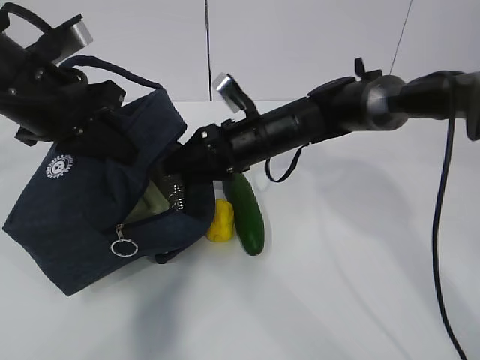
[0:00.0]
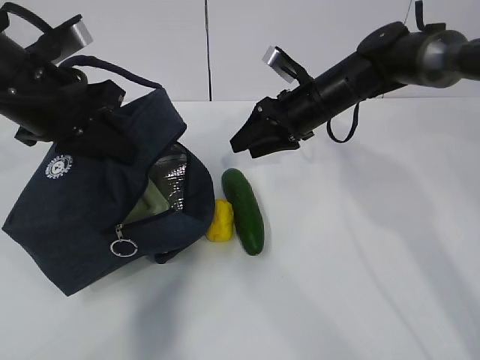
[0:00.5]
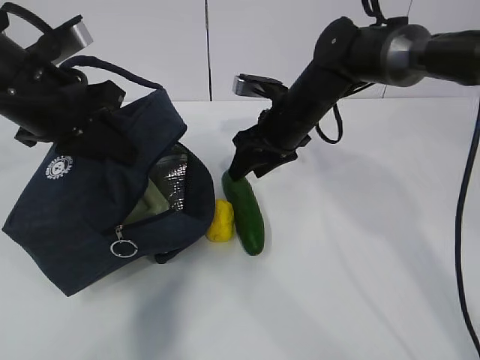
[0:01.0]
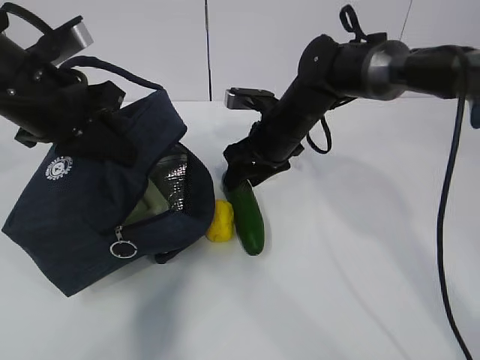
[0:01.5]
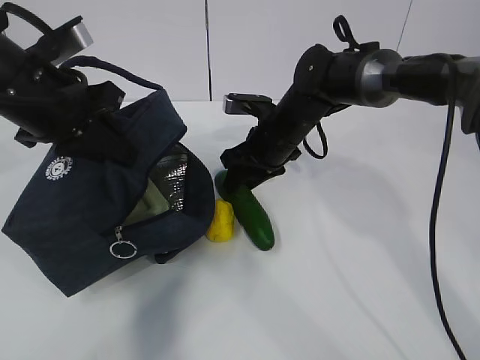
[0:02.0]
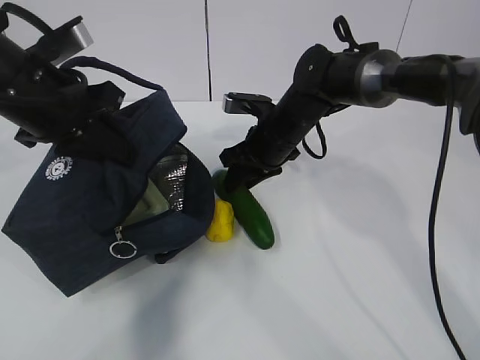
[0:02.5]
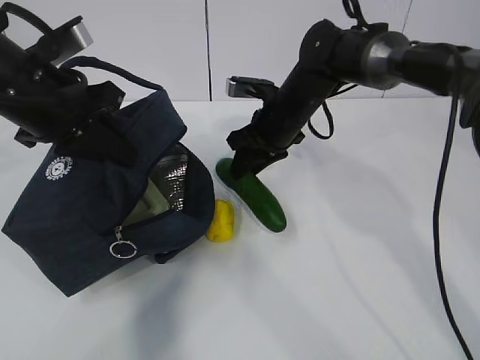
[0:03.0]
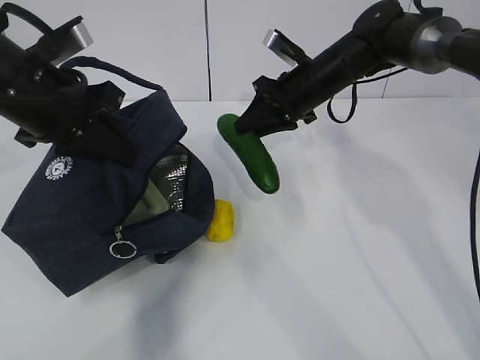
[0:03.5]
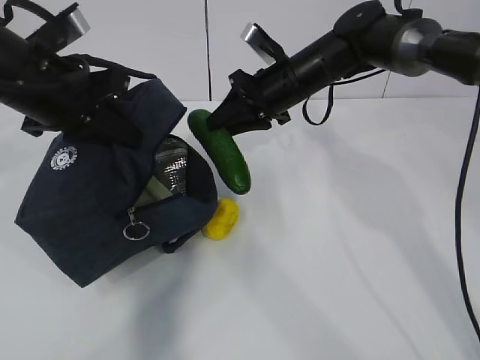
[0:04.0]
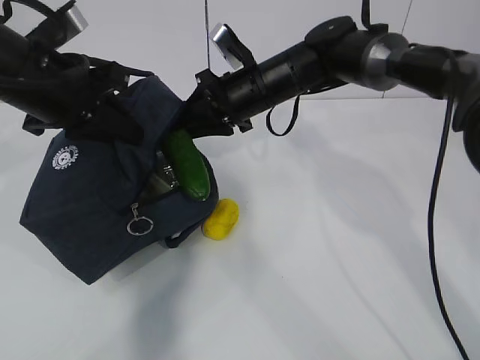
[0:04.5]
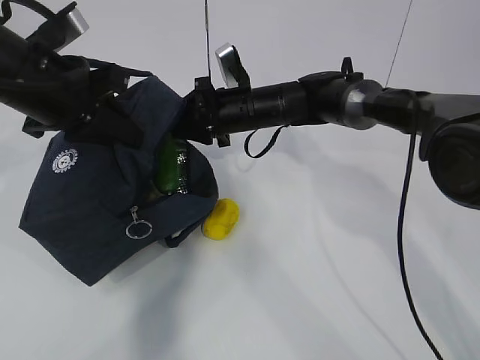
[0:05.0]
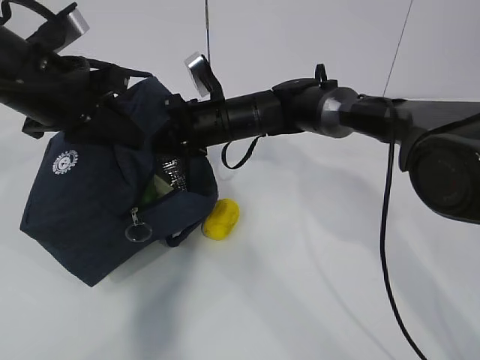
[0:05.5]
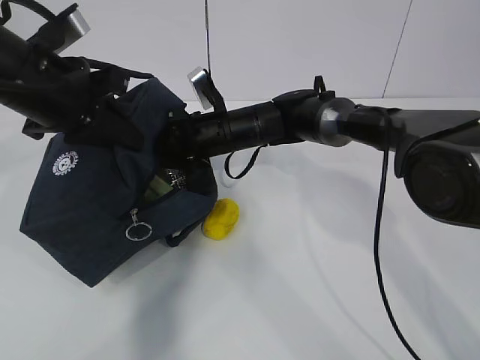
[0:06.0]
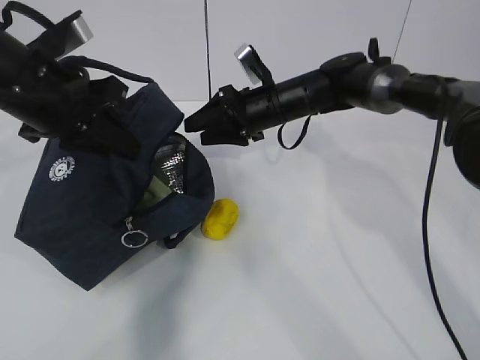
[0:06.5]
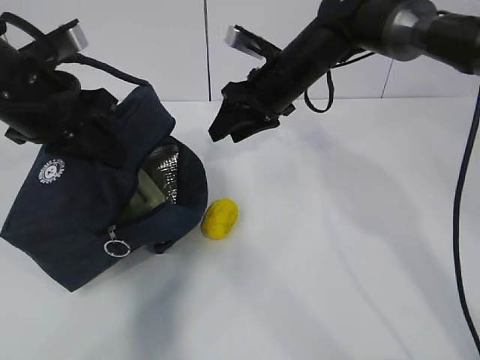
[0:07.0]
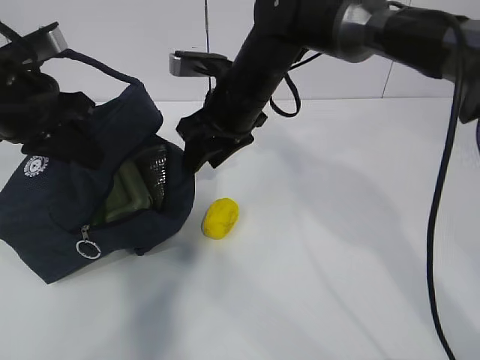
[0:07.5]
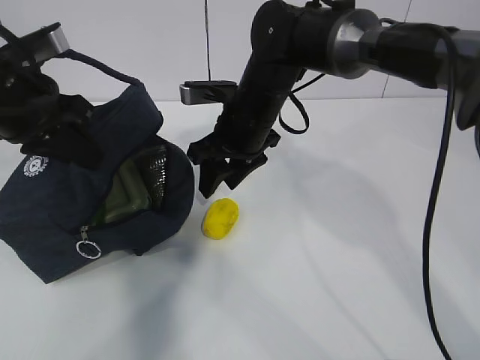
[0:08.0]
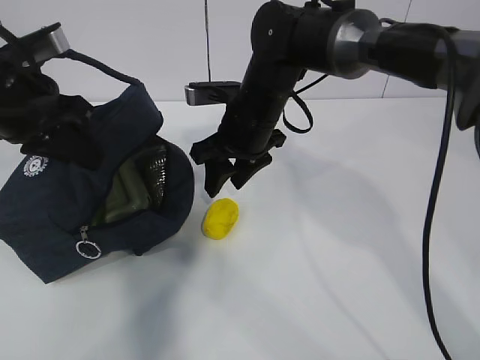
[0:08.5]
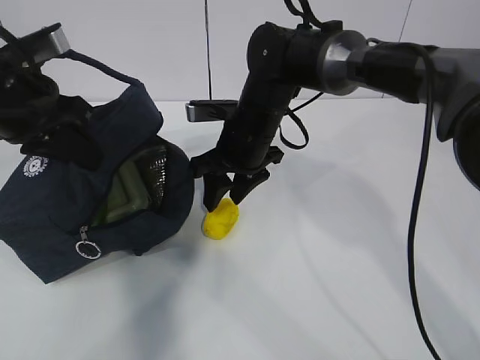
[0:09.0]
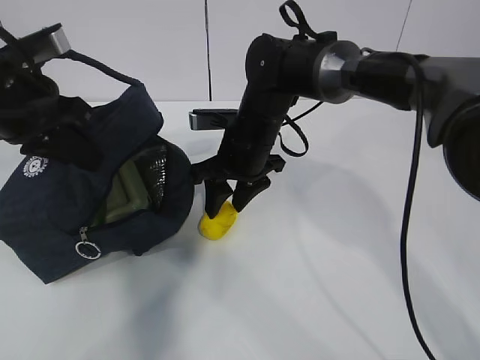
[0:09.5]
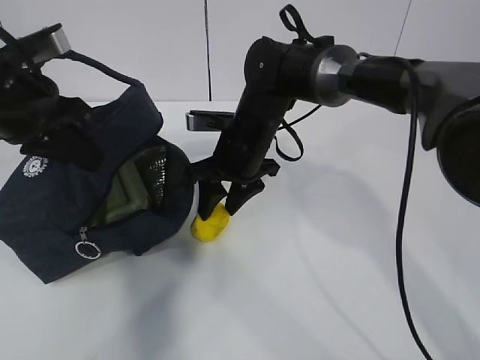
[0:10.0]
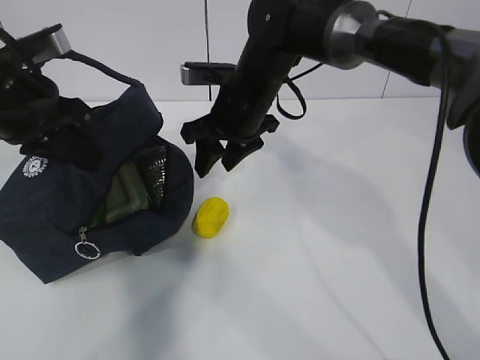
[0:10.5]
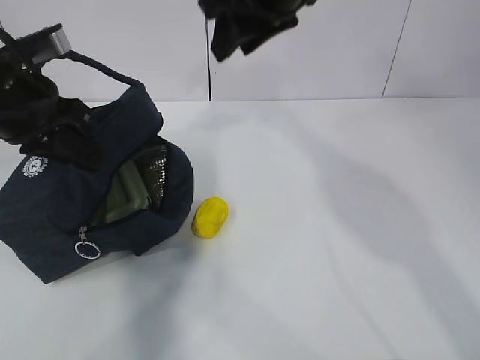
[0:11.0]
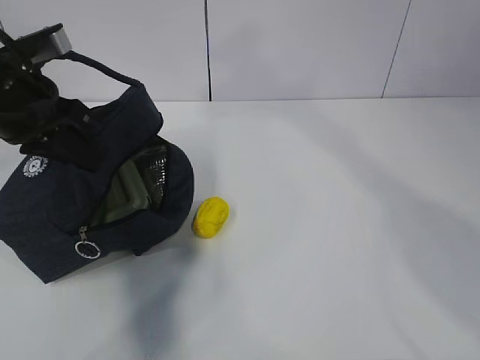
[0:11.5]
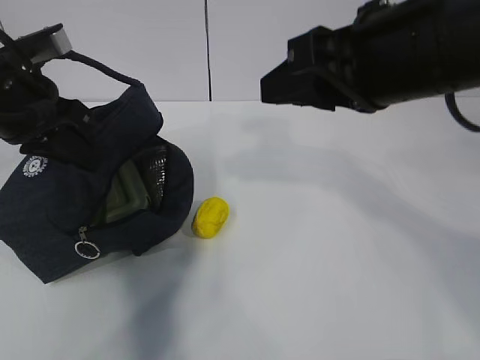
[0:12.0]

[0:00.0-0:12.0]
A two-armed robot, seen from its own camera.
Step, 0:00.0 to 0:01.5: Place it into the bag with your right hand.
Step, 0:02.0 to 0:10.0: Grab the lemon with your right hand.
0:02.0 to 0:04.0: The right gripper goes about 5 cm upward.
0:04.0 to 0:06.0: The right gripper moves to the left and downward, approximately 10 cm, and opens.
0:06.0 to 0:08.0: The right gripper moves upward, some 5 cm.
0:08.0 to 0:10.0: The grippers stay close to where they were, moving slightly.
0:10.0 to 0:12.0: The right gripper shifts roughly 25 cm upward, backward and to the right.

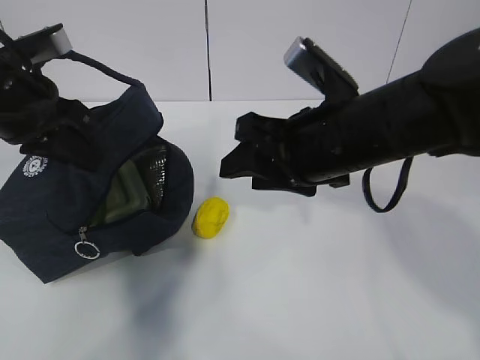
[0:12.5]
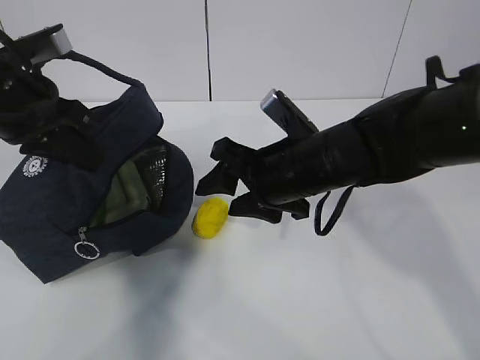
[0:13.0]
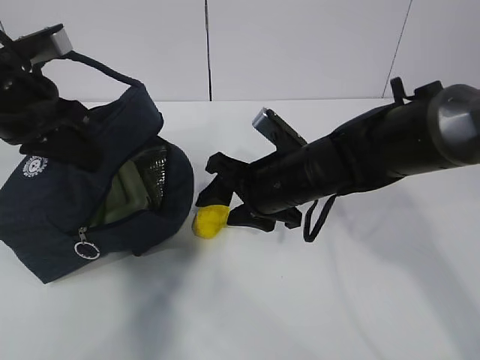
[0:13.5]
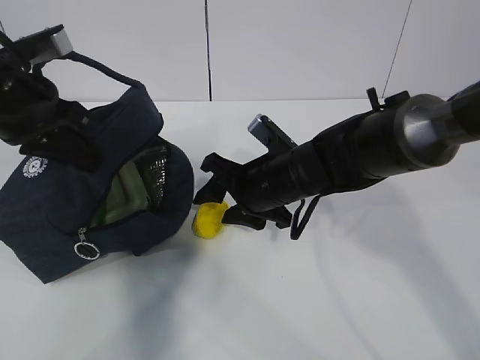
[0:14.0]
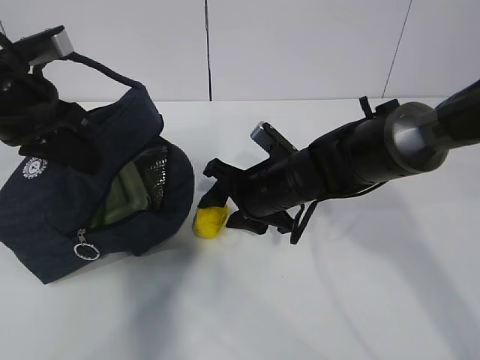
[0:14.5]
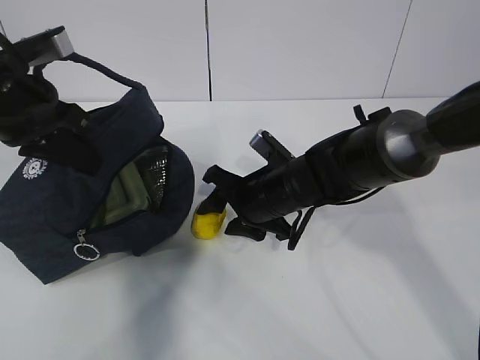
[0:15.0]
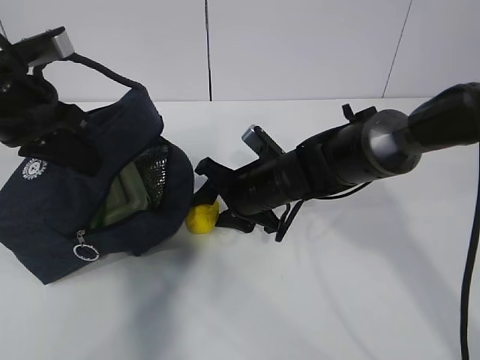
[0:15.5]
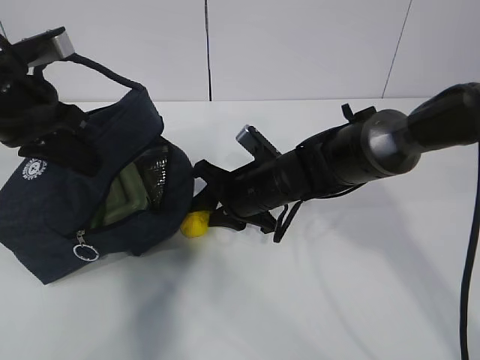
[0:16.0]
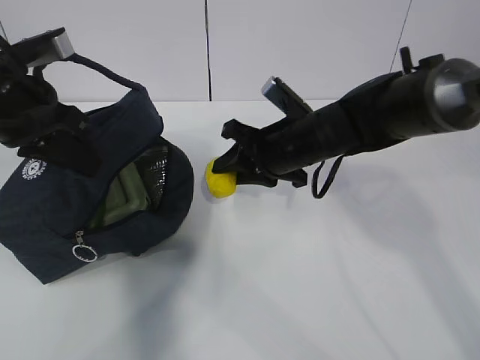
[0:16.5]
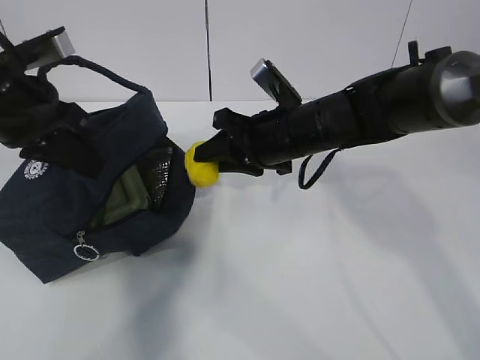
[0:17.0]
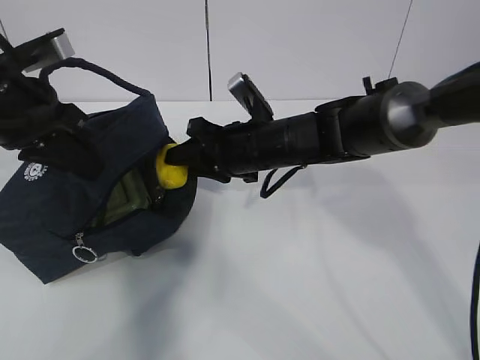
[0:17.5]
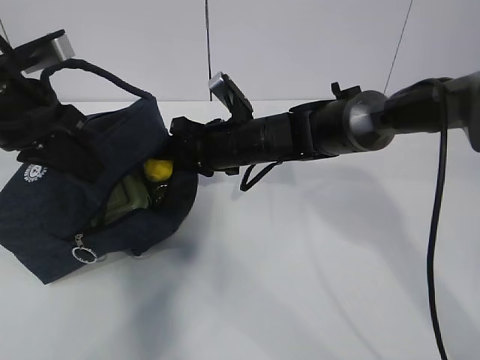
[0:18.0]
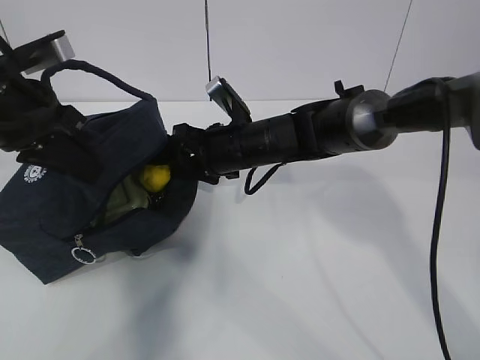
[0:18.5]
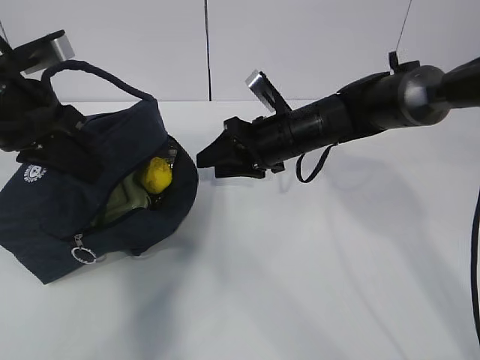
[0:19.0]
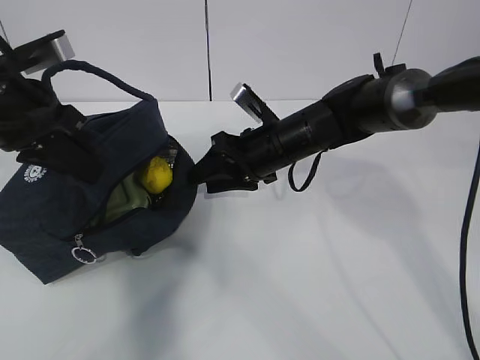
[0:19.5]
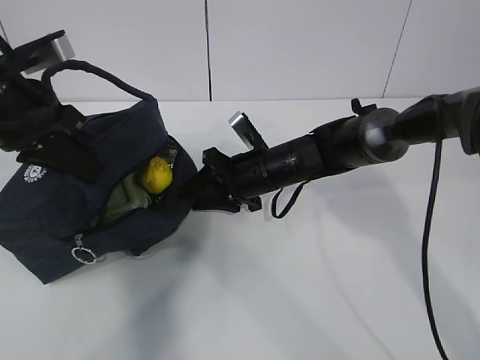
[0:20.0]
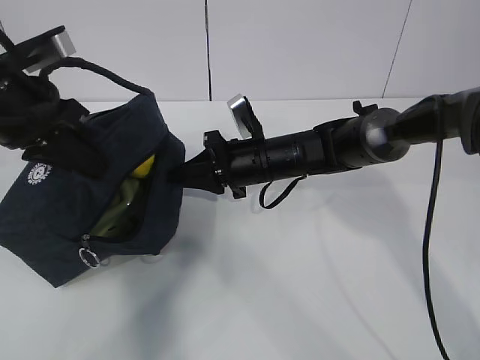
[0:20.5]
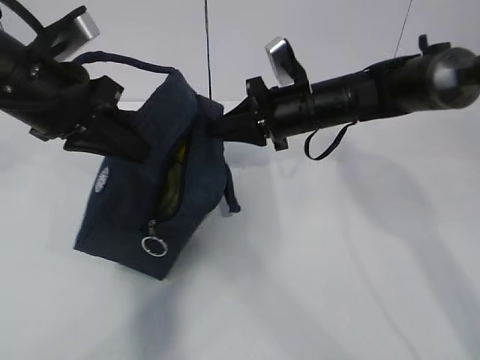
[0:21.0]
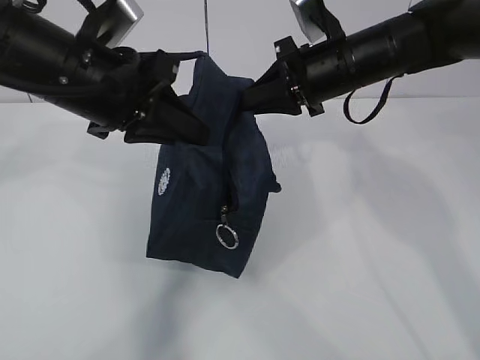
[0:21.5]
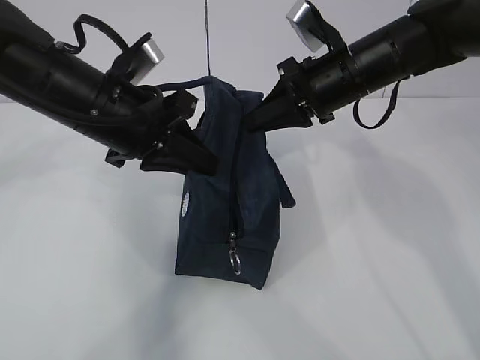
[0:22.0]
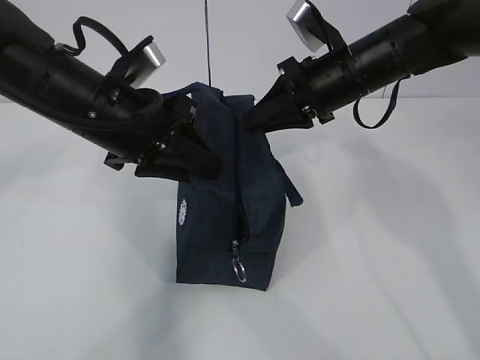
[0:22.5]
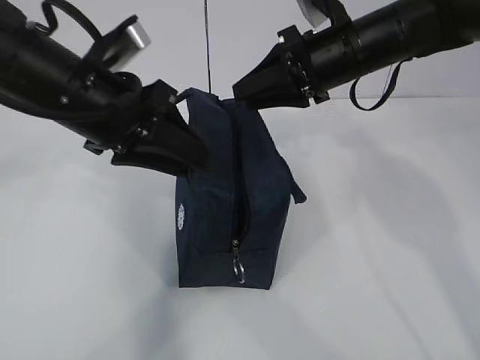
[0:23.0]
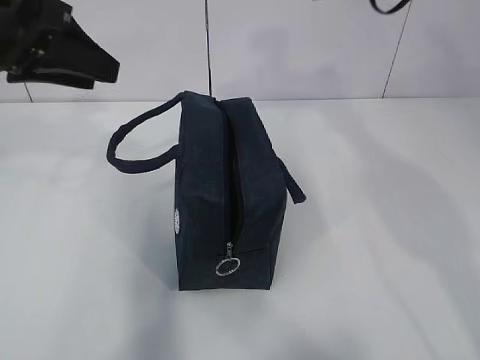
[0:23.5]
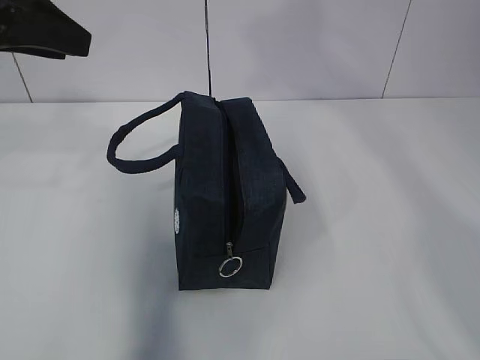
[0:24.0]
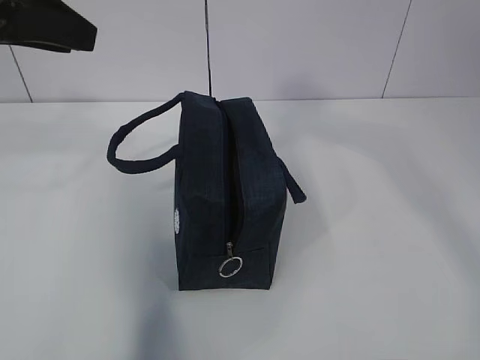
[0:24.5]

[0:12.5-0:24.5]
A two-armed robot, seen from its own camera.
Step, 0:12.5 to 0:13.5: Grab the lunch bag with your right hand.
Step, 0:14.0 to 0:16.0: Stand the lunch bag upright with your right hand.
0:12.5 to 0:14.5: The right gripper travels downward and forward by approximately 15 cm.
0:14.5 to 0:16.5: The right gripper shifts by roughly 5 cm, and closes its fingers.
0:16.5 to 0:18.5: The right gripper moves to the left, about 5 cm, and opens.
0:18.5 to 0:20.5: The right gripper closes.
0:20.5 to 0:22.5: The right gripper goes about 15 cm upward and to the right. The left gripper is displaced to the right by some 10 cm, and opens.
0:22.5 to 0:24.5: The left gripper travels upward and to the left by some 15 cm, while the right gripper travels upward and backward by some 30 cm.

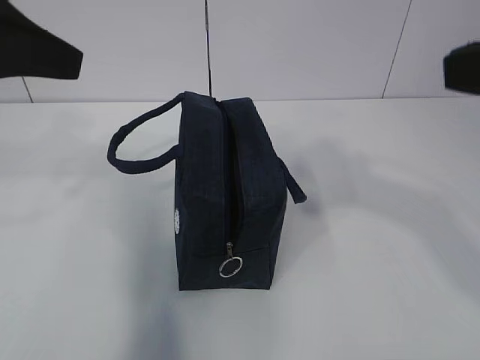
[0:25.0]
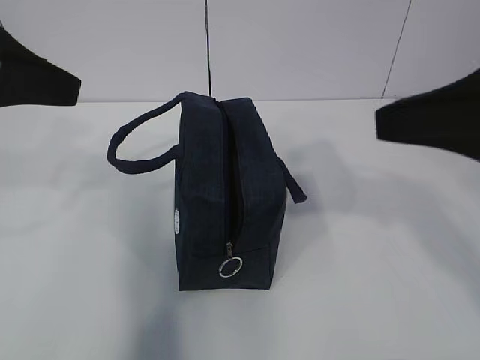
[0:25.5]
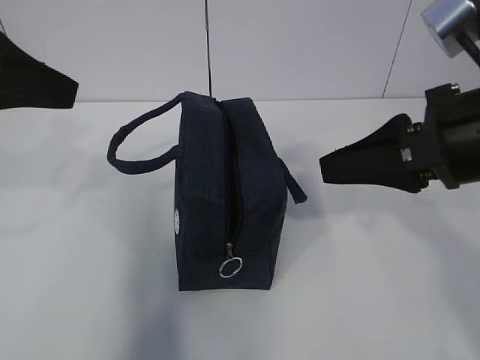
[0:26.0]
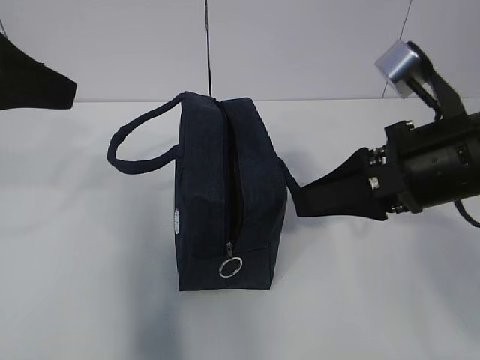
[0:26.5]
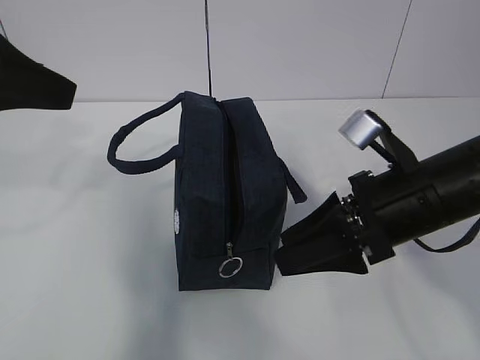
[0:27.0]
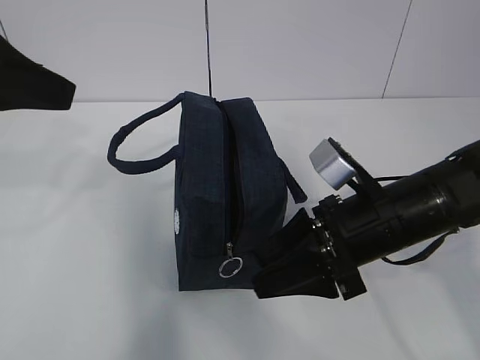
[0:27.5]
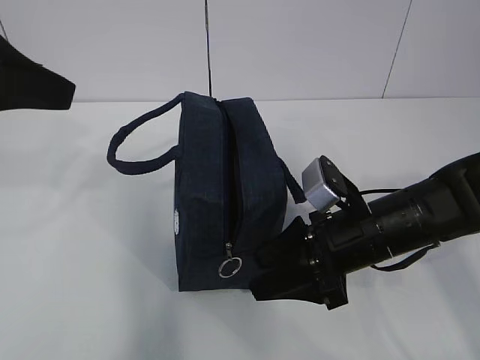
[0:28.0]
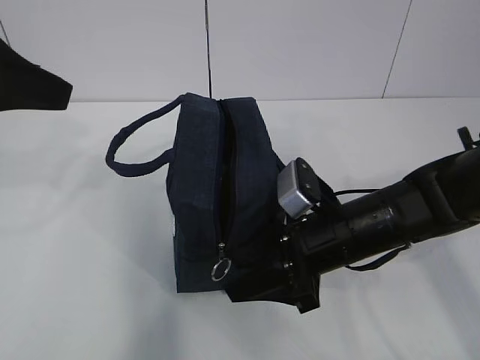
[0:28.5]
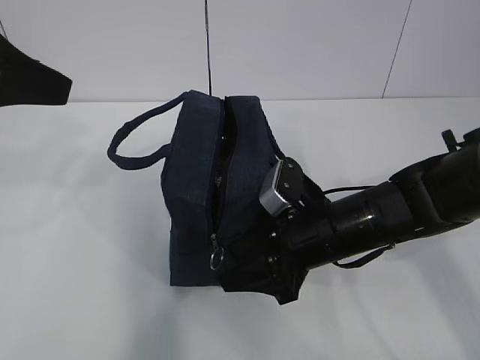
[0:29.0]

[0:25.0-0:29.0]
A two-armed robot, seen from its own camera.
0:25.0 to 0:27.0: The right gripper goes about 20 cm downward and forward, and opens its fingers.
0:27.0 to 0:29.0: The right gripper shifts about 10 cm downward and to the left.
